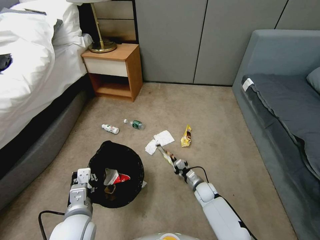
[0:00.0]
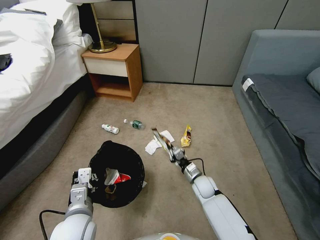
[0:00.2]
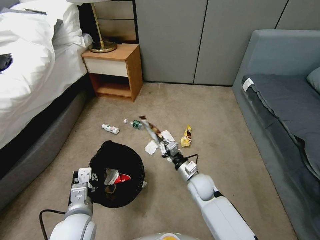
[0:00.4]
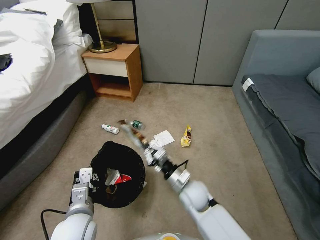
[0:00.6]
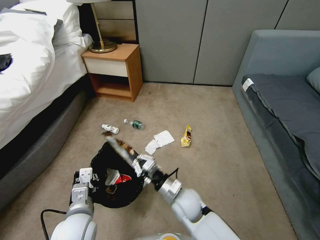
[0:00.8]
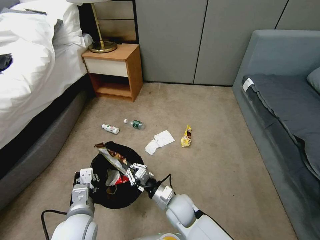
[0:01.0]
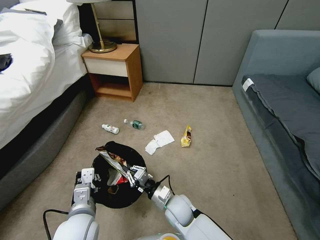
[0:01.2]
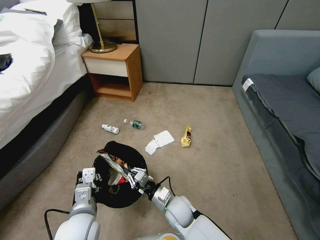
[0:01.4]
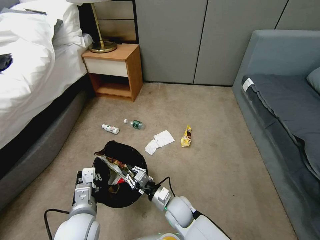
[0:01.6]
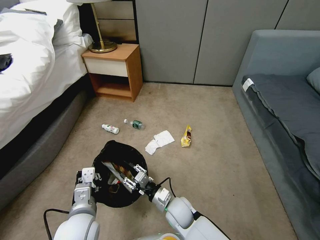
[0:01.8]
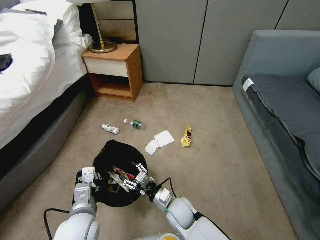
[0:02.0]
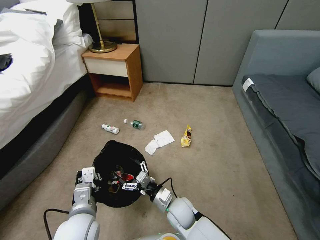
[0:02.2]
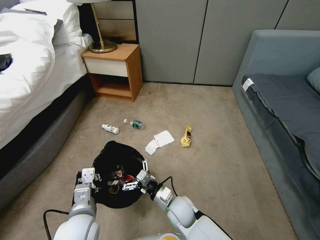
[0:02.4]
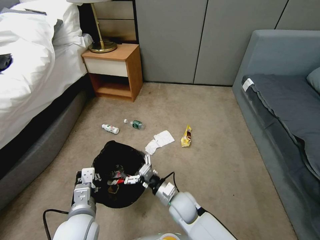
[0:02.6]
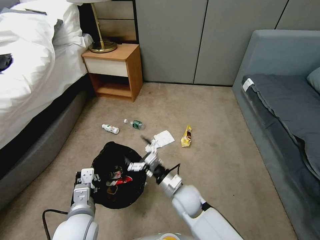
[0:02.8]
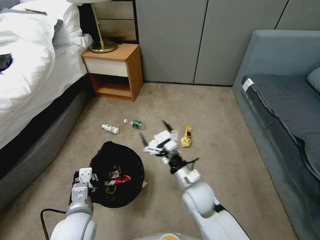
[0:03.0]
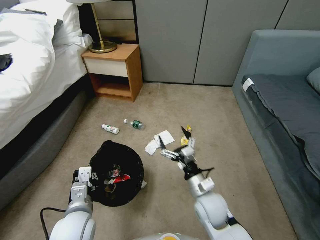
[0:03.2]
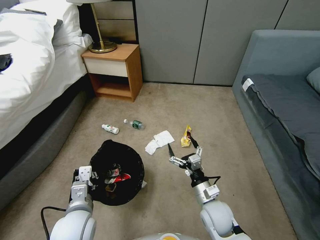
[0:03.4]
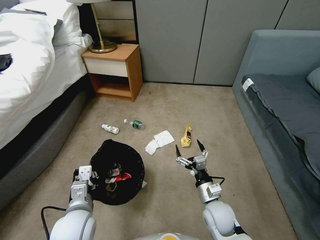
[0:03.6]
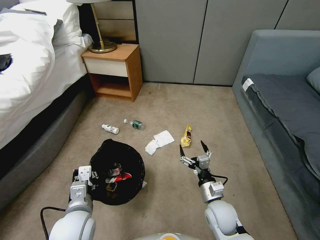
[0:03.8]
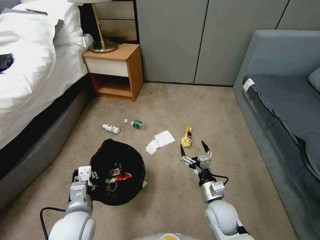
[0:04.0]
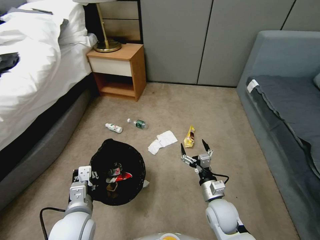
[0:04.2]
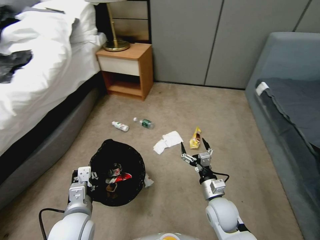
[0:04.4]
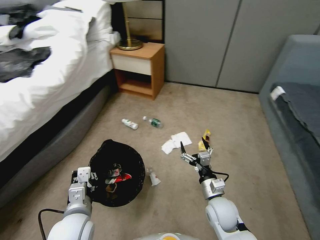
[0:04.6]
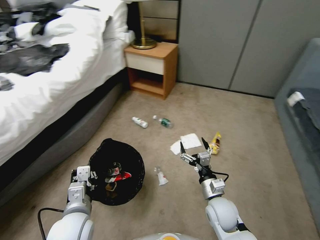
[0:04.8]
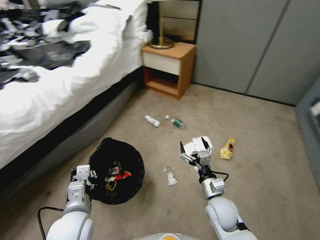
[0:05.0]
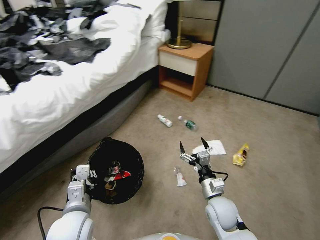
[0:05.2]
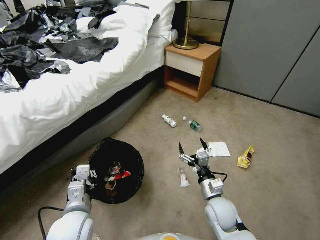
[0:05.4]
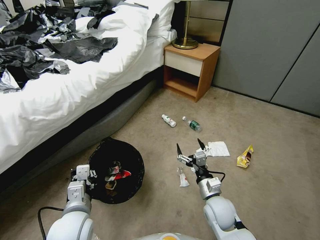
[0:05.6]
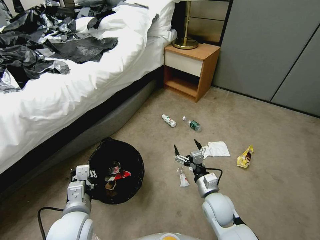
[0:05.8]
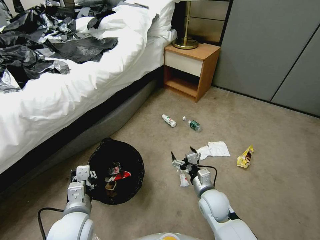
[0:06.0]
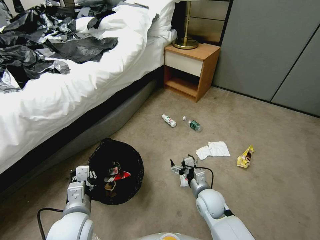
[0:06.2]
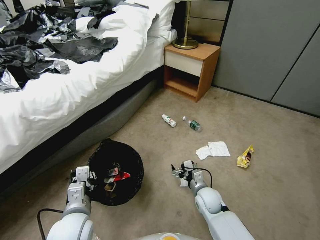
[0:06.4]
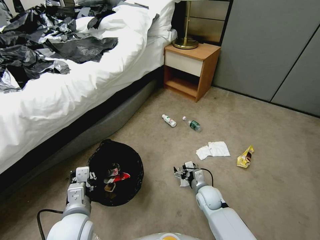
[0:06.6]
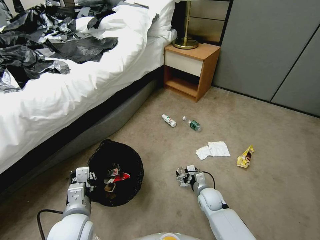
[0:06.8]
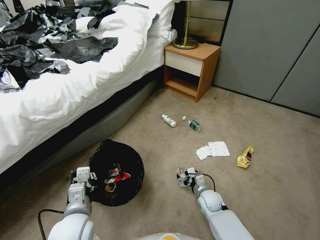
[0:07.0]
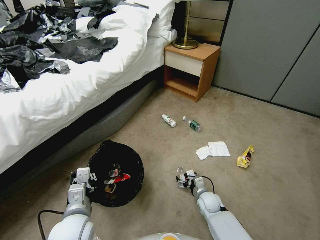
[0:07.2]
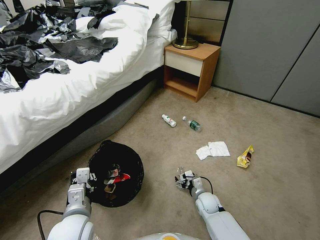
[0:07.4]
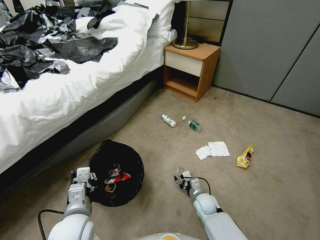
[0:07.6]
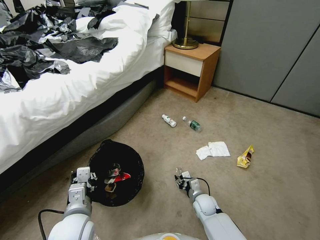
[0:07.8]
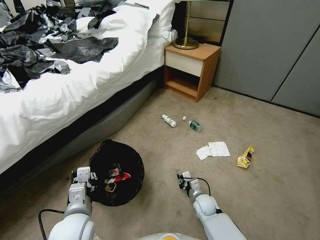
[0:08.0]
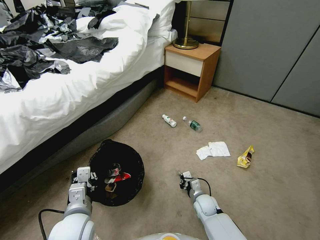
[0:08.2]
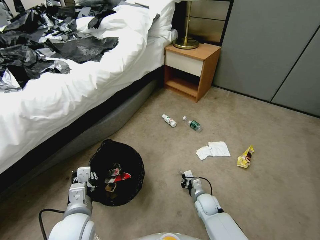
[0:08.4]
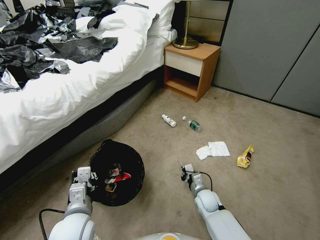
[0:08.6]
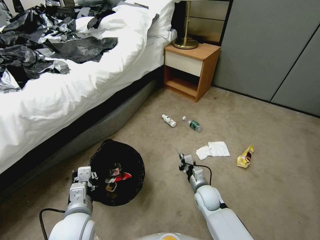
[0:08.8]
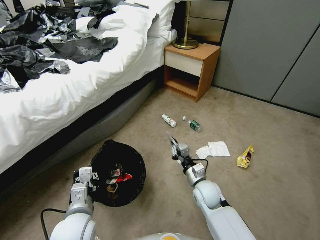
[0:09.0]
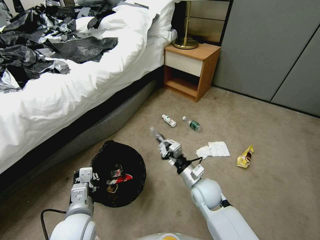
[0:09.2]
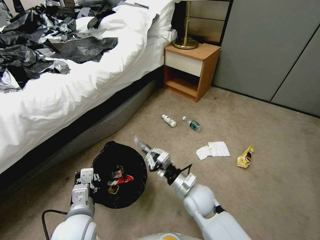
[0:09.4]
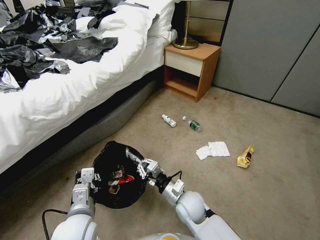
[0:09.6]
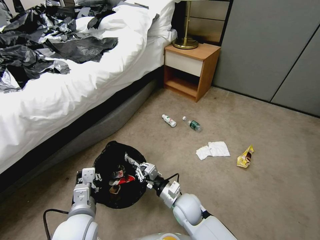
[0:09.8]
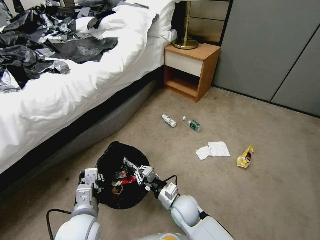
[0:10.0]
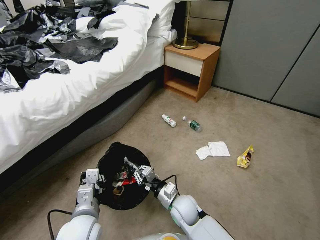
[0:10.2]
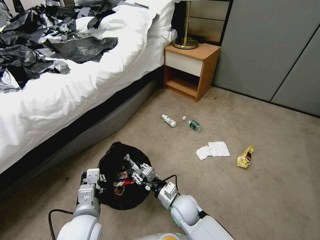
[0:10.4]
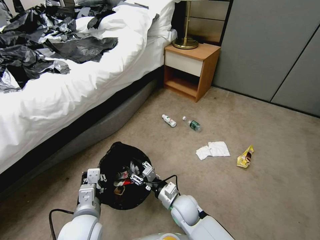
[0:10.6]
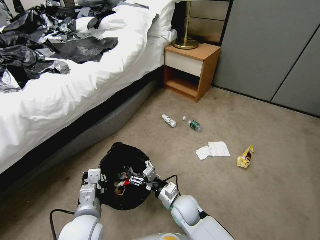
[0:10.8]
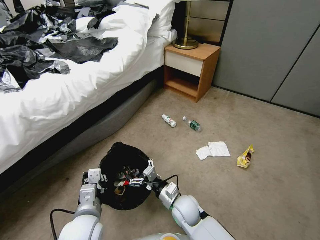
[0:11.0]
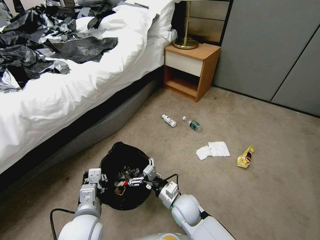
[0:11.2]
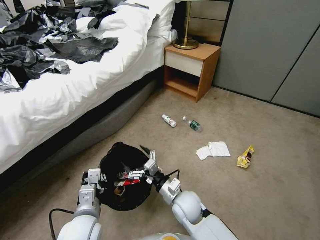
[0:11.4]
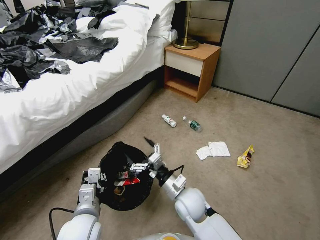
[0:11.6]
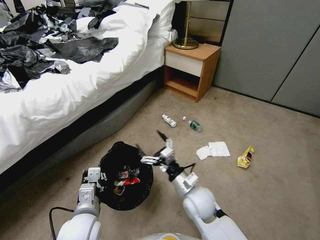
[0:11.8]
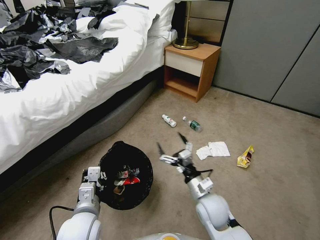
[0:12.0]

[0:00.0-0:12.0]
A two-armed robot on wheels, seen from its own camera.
Task of the whole recording: Pick up the trash bin, then pick up the garbage from the floor and place it into the trash bin.
0:00.0 to 0:01.6: The right gripper moves to the left, upward and backward, approximately 20 cm.
0:01.6 to 0:03.0: The right gripper goes approximately 10 cm upward and to the right, and opens up.
0:03.0 to 0:04.4: The right gripper shifts roughly 10 cm to the right and downward.
0:06.0 to 0:07.6: The right gripper goes some 15 cm downward.
0:07.6 to 0:09.0: The right gripper heads upward, covering roughly 15 cm, and closes.
0:09.0 to 0:10.4: The right gripper travels to the left by about 10 cm.
0:10.4 to 0:12.0: The right gripper goes about 10 cm to the right and upward, and opens.

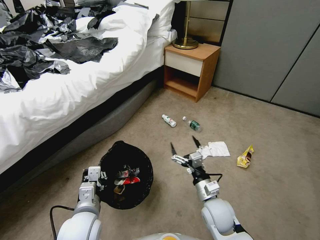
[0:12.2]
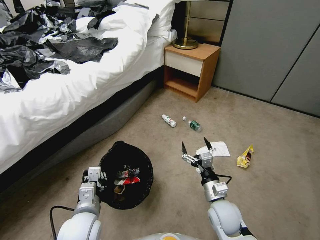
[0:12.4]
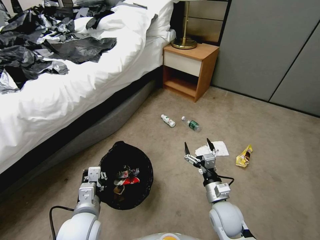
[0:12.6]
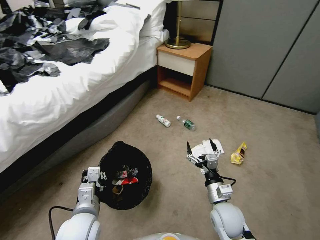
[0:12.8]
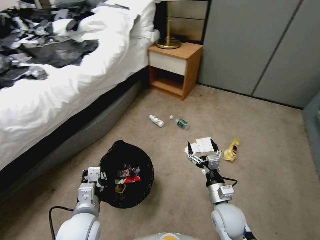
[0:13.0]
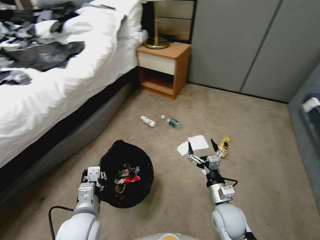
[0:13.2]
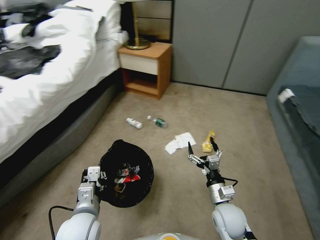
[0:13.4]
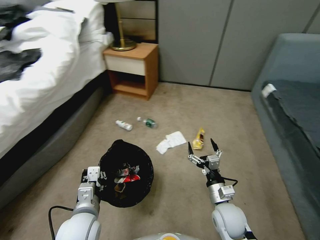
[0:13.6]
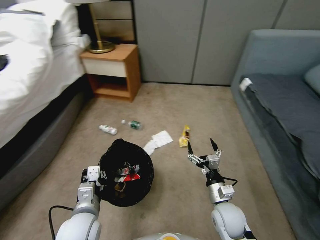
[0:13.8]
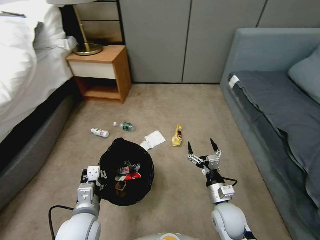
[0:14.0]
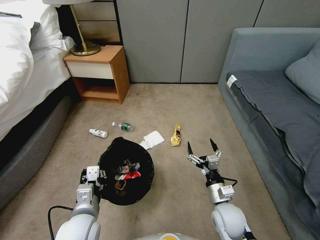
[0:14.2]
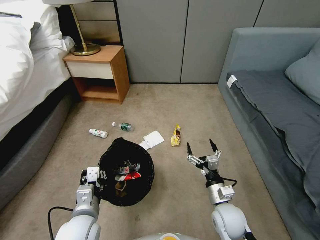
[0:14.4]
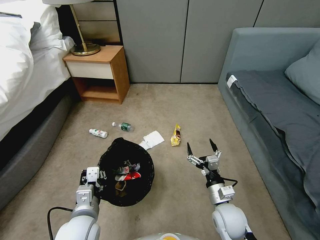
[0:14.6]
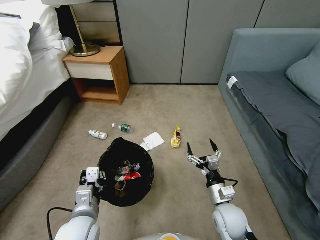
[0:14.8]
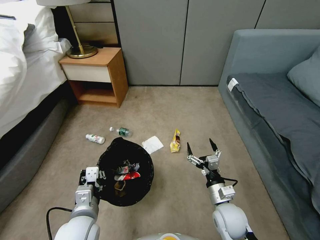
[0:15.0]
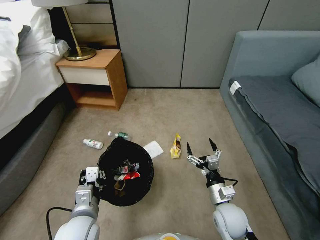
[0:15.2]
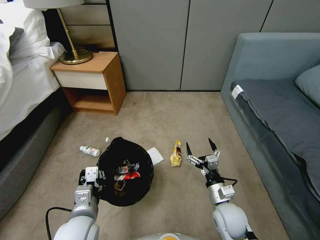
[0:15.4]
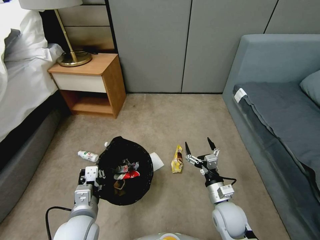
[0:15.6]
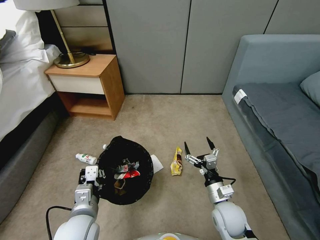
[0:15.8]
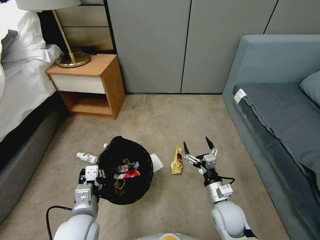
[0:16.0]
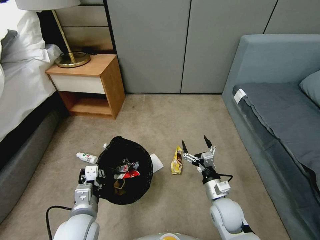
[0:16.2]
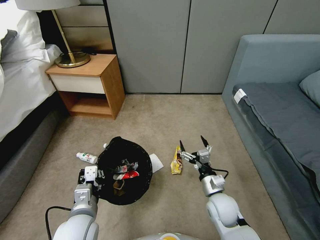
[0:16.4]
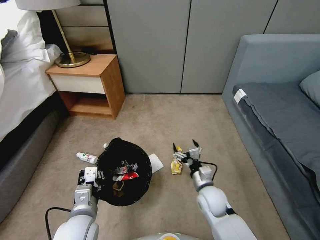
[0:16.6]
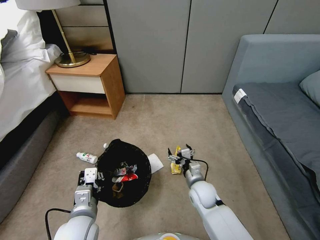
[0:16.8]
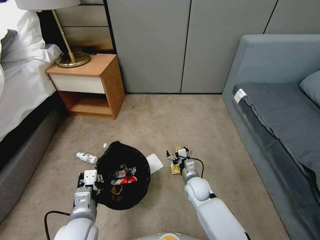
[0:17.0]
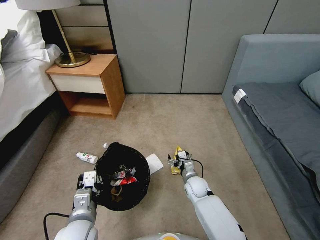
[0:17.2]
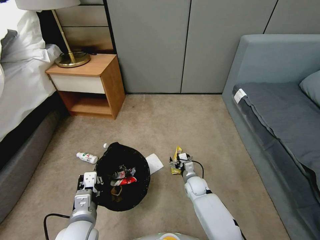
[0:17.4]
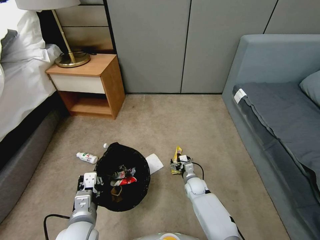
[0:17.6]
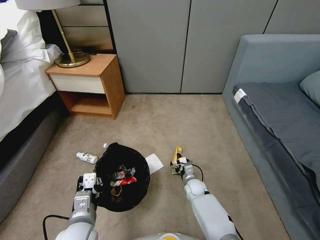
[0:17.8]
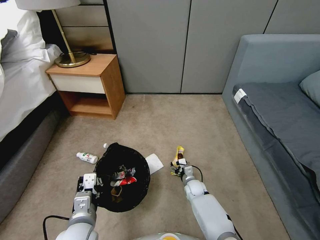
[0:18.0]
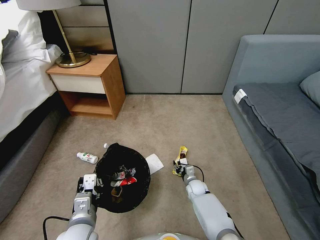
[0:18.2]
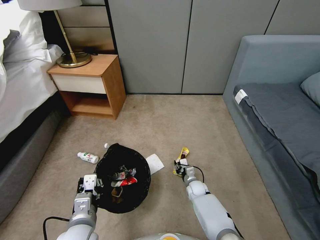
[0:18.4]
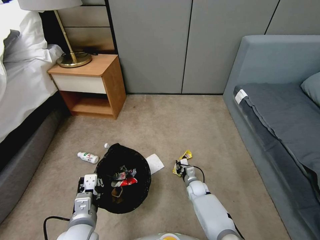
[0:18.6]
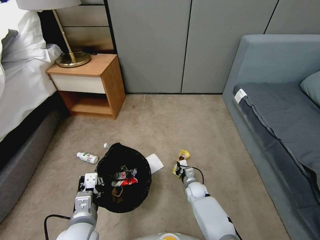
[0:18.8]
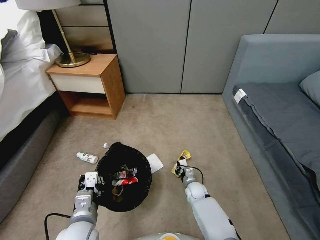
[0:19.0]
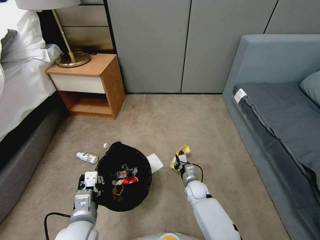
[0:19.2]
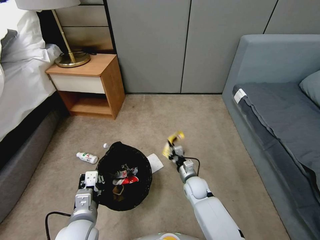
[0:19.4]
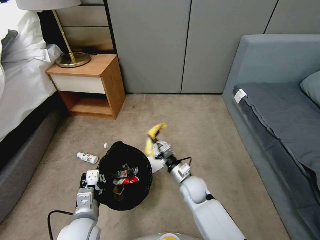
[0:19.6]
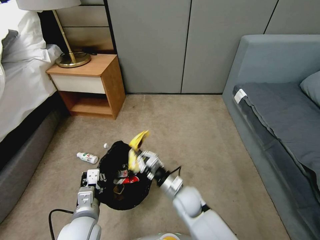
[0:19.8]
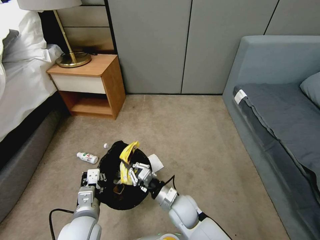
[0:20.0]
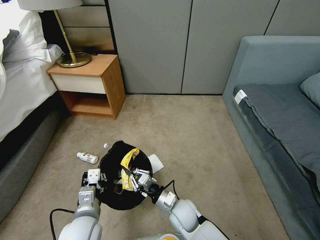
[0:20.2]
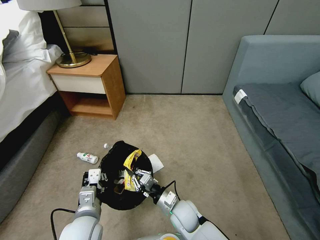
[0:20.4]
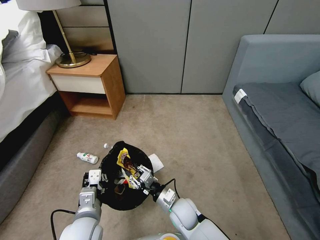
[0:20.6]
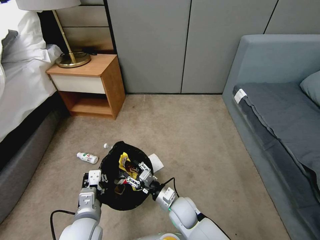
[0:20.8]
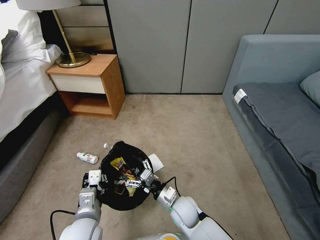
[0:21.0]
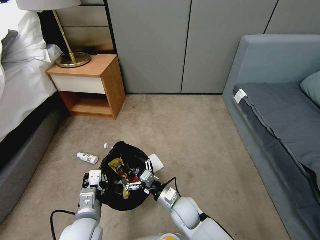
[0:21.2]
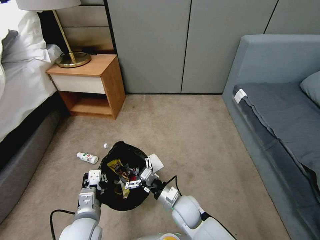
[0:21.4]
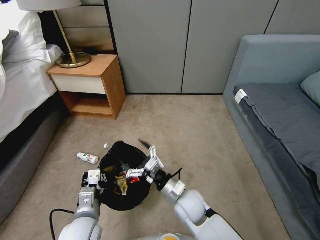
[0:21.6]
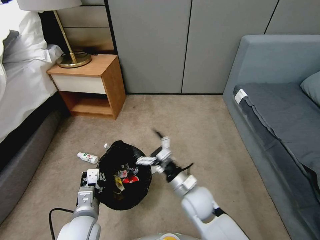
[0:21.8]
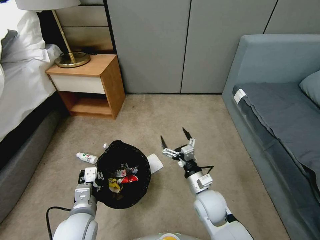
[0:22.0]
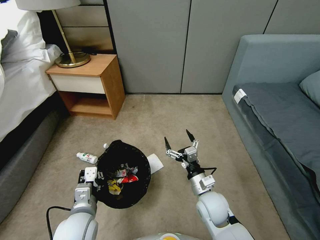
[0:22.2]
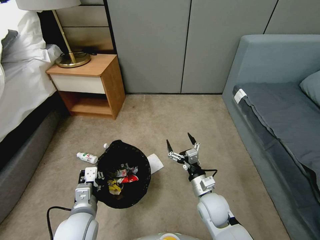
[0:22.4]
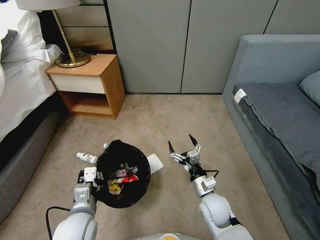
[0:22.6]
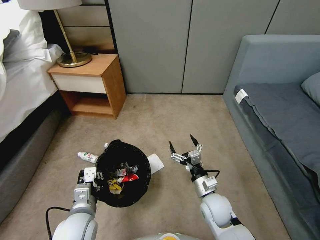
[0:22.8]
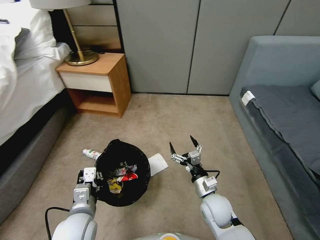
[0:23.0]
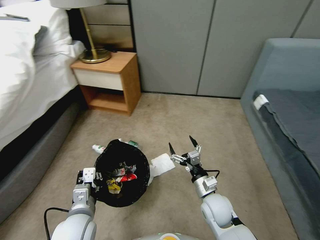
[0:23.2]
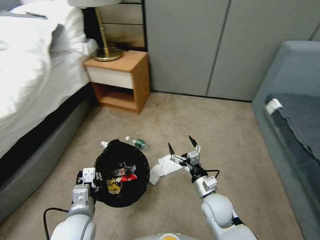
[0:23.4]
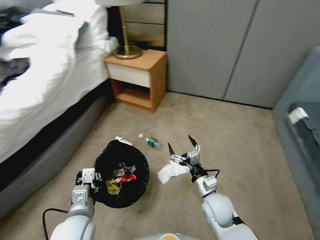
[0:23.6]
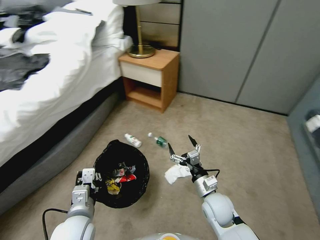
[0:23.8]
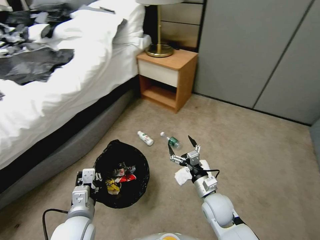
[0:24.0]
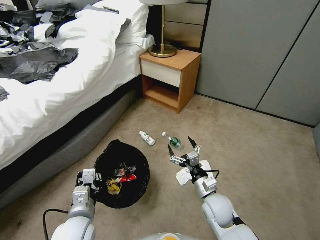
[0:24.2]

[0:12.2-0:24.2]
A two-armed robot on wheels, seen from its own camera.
Task of the whole recording: Pick up the trash bin, then pick up the garbage from the floor and place it into the trash bin.
0:16.6 to 0:18.2: The right gripper goes some 20 cm downward and forward, and closes its fingers.
0:18.2 to 0:19.8: The right gripper shifts some 20 cm upward, backward and to the left, and closes.
0:19.8 to 0:21.2: The right gripper opens its fingers.
0:21.2 to 0:22.6: The right gripper shifts roughly 10 cm to the right.
